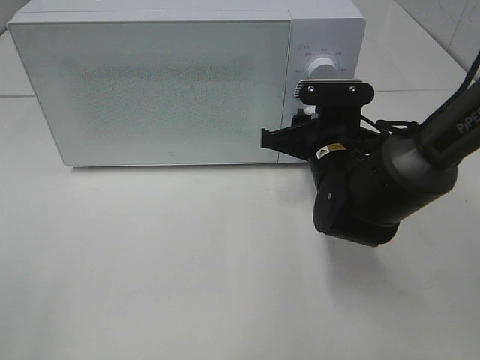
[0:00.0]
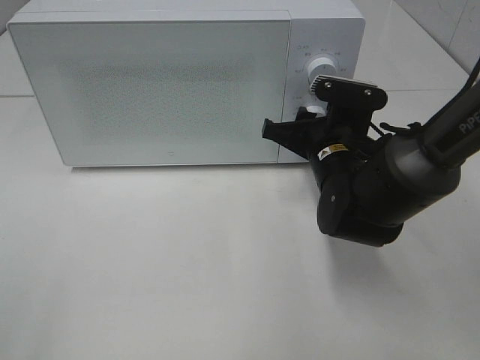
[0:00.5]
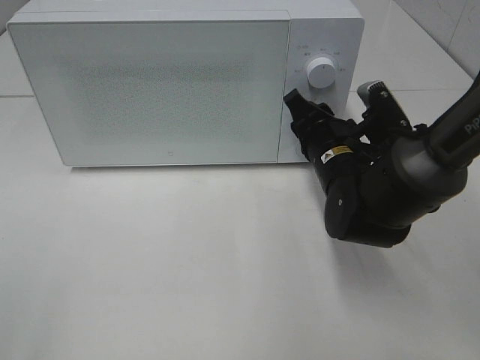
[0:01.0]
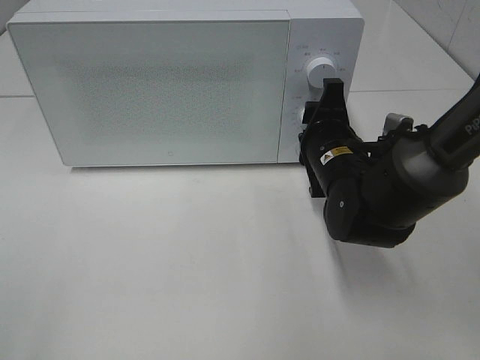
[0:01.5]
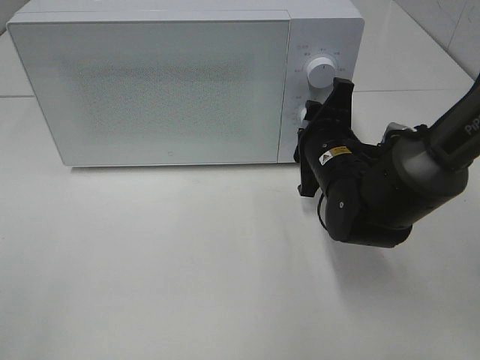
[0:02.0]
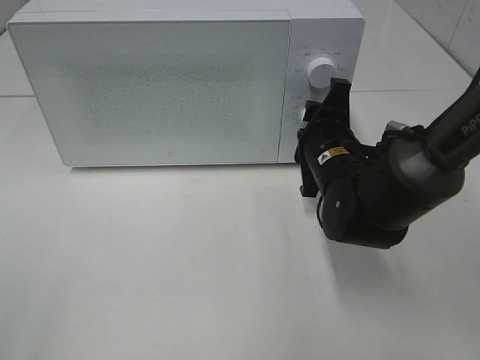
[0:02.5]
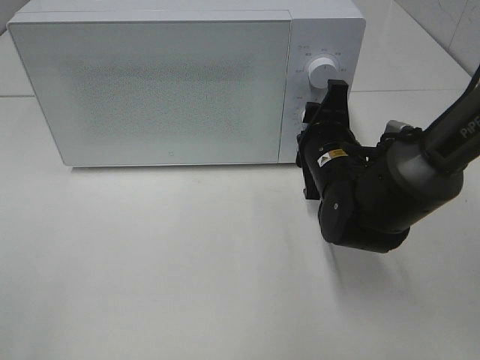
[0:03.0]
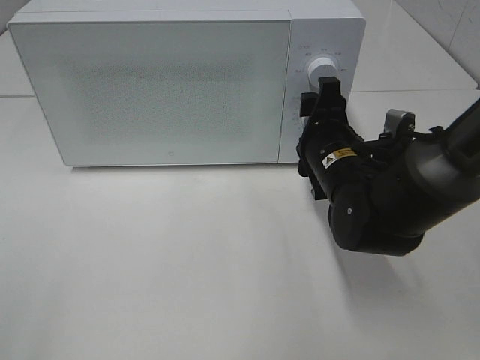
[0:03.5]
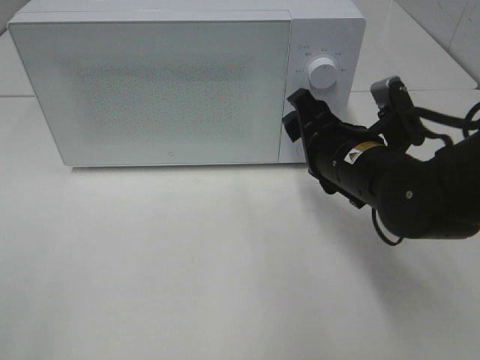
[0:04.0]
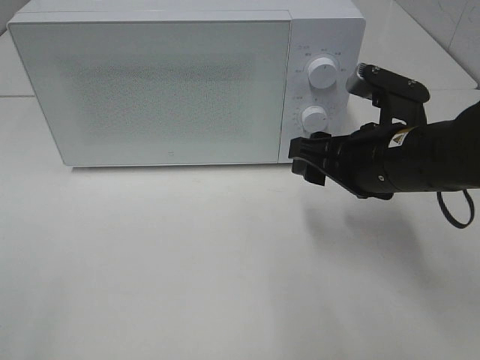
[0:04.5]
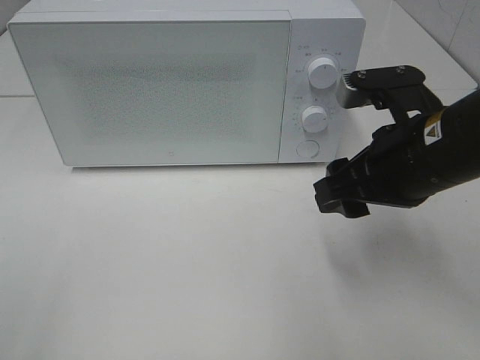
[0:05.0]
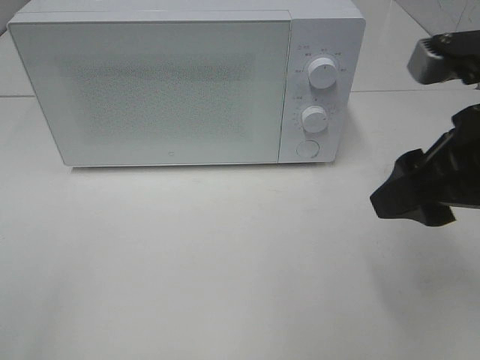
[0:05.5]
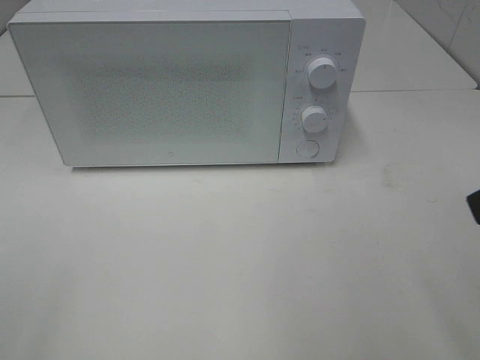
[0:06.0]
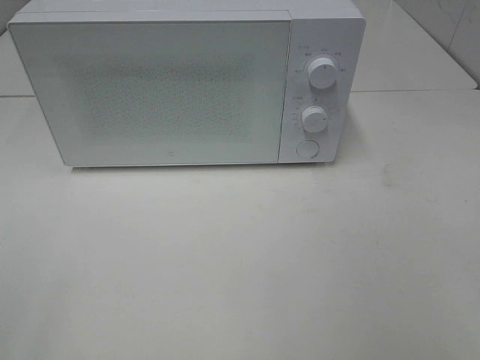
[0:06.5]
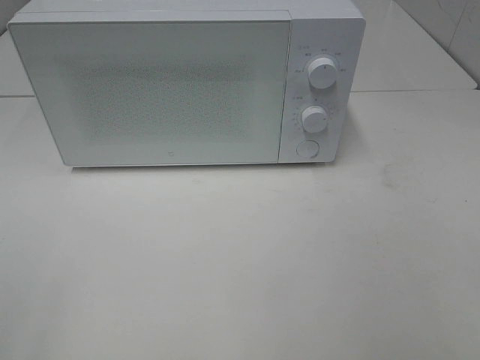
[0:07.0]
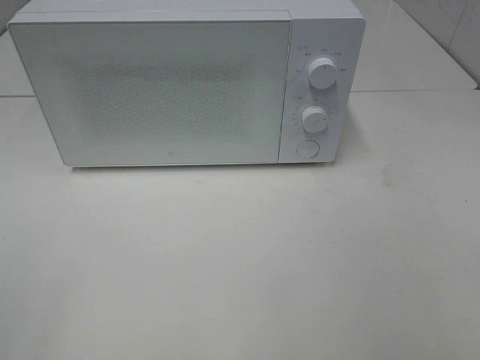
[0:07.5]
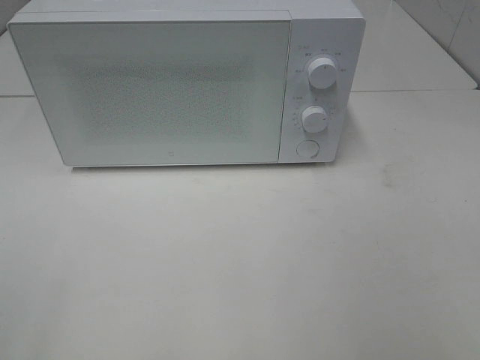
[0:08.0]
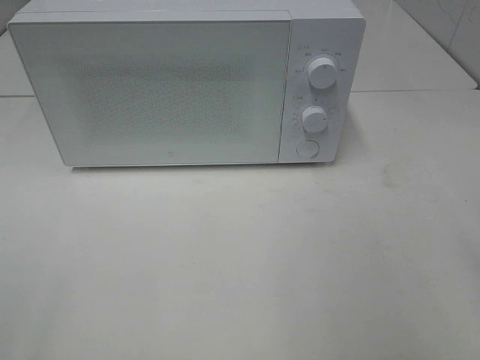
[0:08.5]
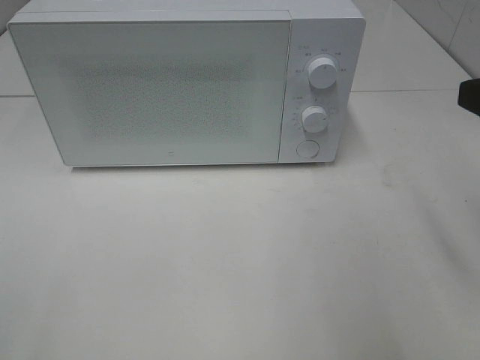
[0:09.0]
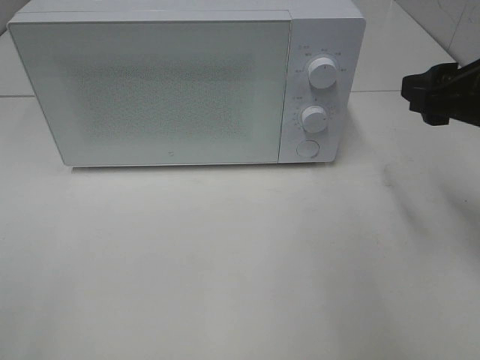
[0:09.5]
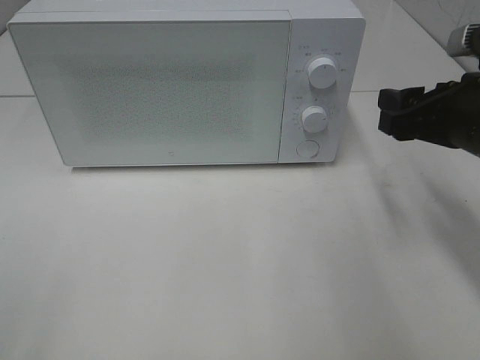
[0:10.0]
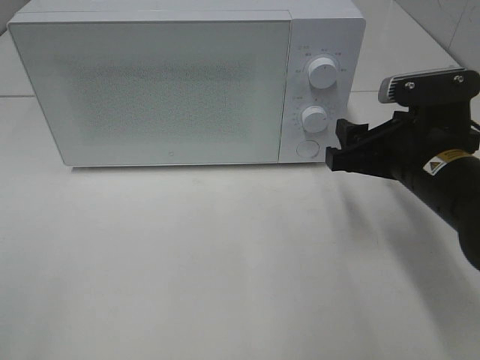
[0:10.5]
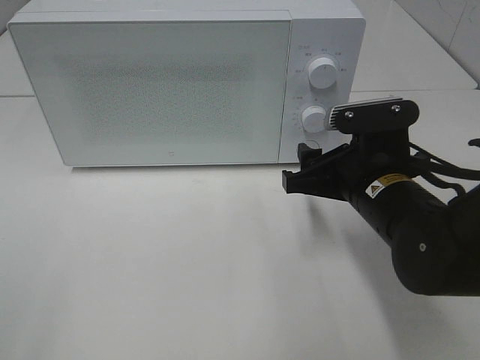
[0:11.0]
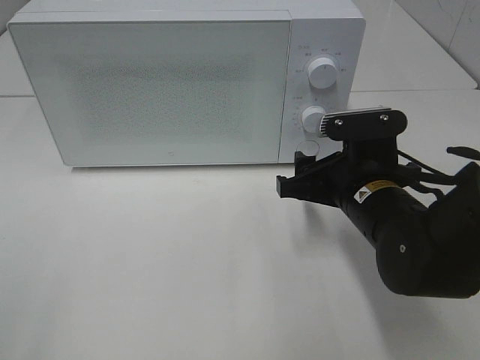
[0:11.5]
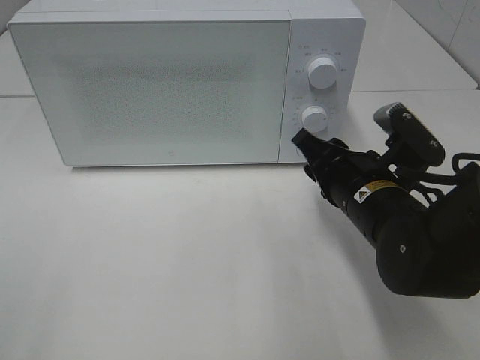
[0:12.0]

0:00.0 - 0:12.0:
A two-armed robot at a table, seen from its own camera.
Task of the whole recording: Heat the burger.
Step, 0:00.0 - 0:03.0: Right hand: twist timer button.
0:02.0 - 0:04.0: The right gripper moves some 5 cm.
0:04.0 - 0:06.0: The right gripper travels backward, upward and to the right by some 25 cm.
0:08.0 - 0:10.0: The right gripper is displaced forward and downward by some 25 cm.
0:10.0 - 0:12.0: The right gripper shifts some 15 cm to the left and downward.

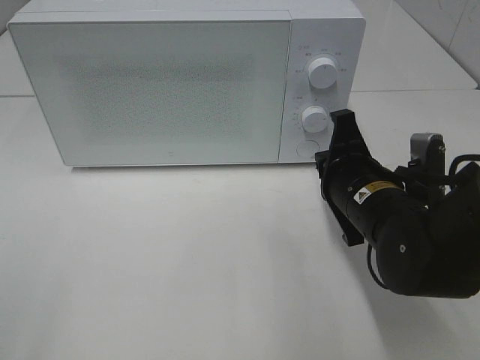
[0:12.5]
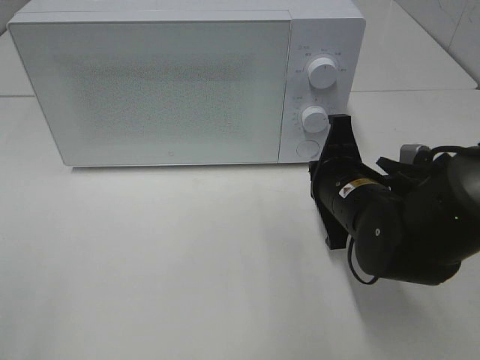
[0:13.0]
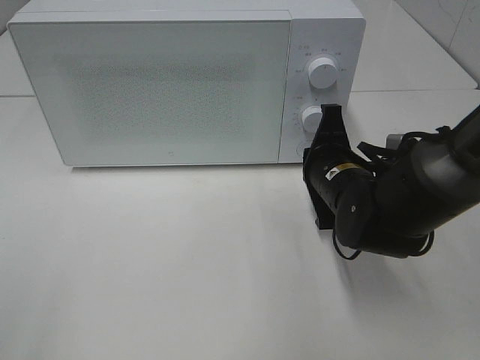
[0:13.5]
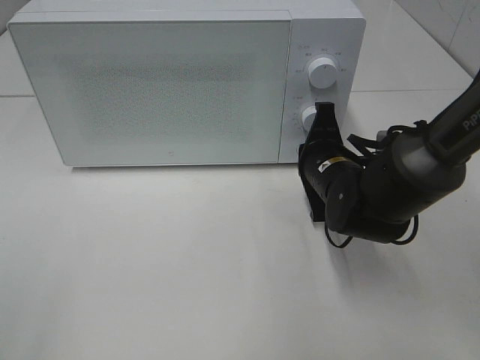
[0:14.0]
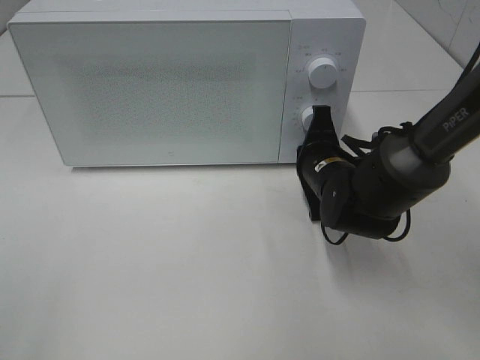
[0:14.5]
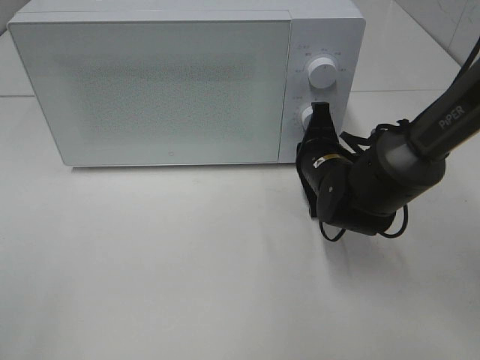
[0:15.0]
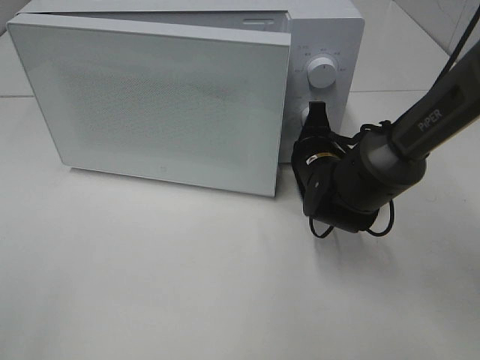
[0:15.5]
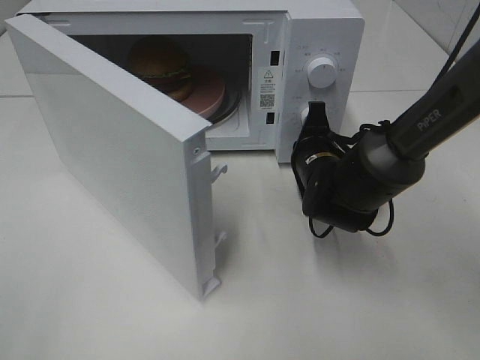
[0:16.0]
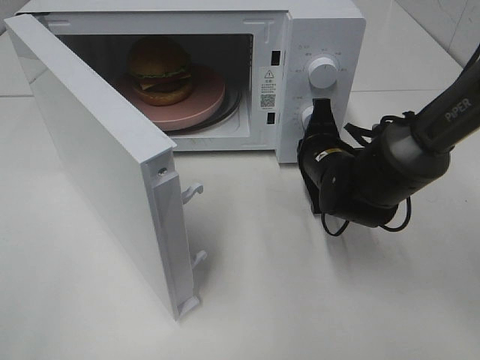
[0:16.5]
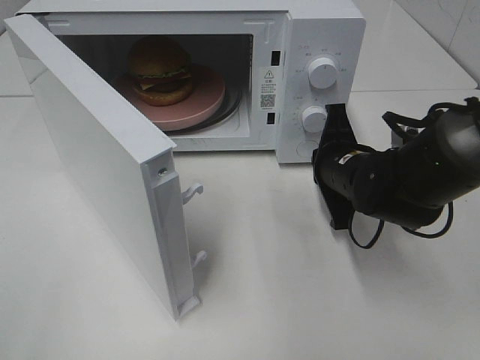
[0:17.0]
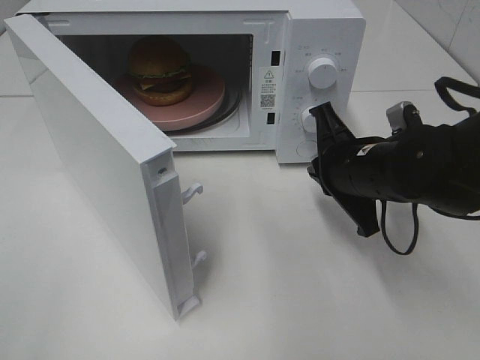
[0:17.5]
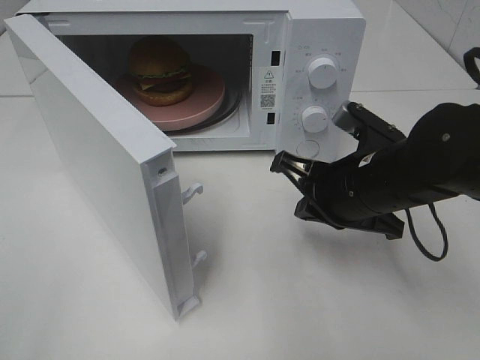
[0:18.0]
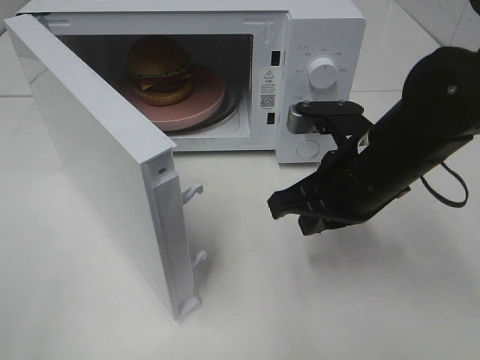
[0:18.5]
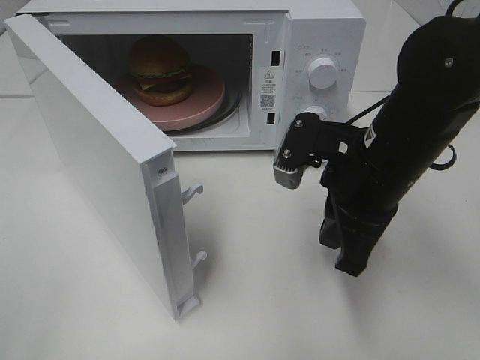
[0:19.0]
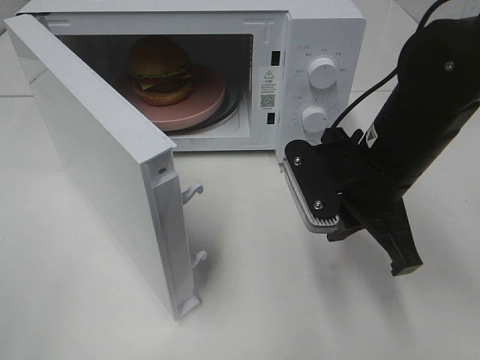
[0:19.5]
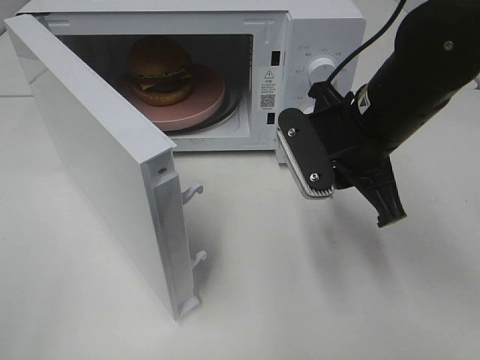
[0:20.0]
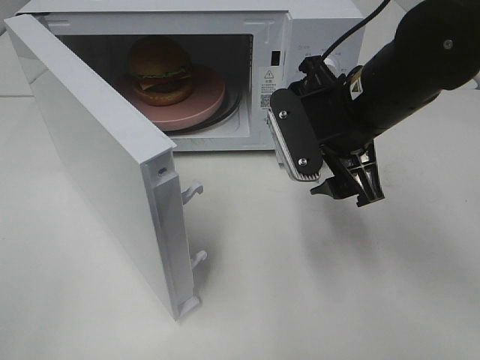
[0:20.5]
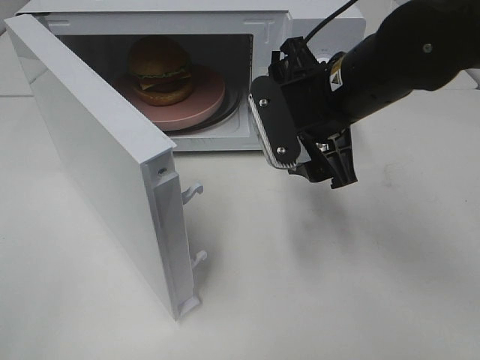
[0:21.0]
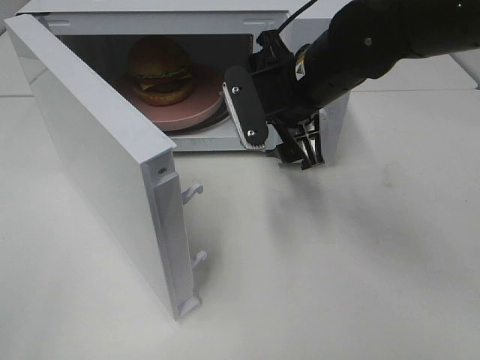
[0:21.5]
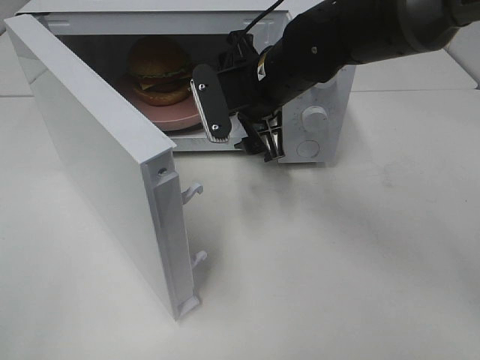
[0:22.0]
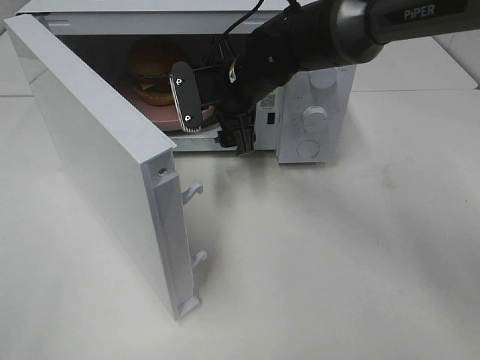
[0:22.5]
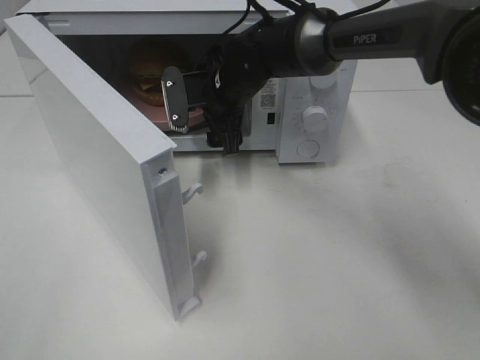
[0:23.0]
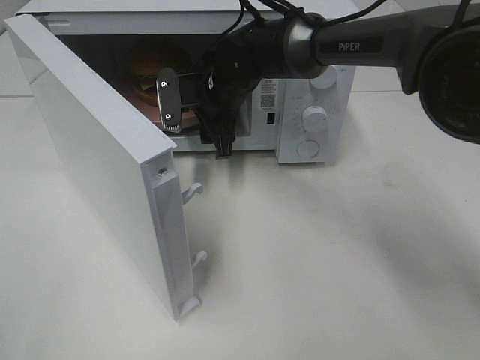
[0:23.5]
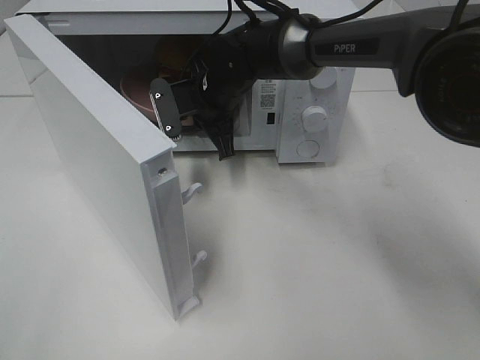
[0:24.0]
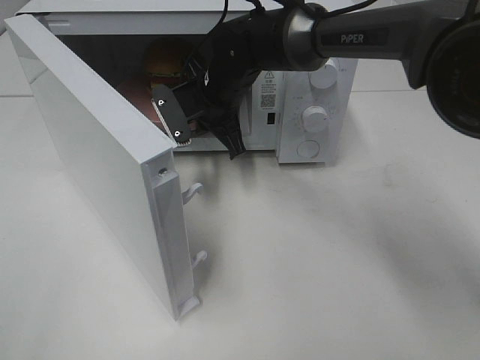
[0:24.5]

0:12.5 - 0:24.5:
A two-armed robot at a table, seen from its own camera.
Task of the whole recording: Heat the burger.
Step, 0:12.5 - 0:16.5: Right hand: press the switch.
Step, 0:17.0 - 0:23.5: Right hand: grab the plate with the hamburger.
0:12.5 - 0:14.5: The right gripper is displaced forward by roughly 10 cm.
0:16.5 - 0:18.5: The right gripper travels backward and upward by some 15 cm.
0:18.5 - 0:20.5: The right gripper changes place by approximately 5 cm, and opens up.
0:20.5 - 0:22.5: The right gripper shifts roughly 15 cm forward and to the left.
0:22.5 - 0:24.5: The right gripper closes up.

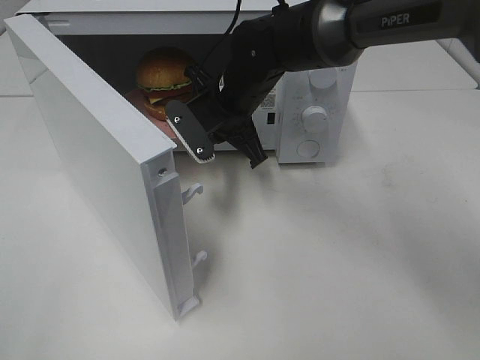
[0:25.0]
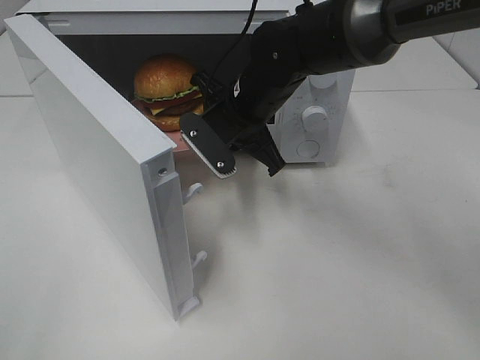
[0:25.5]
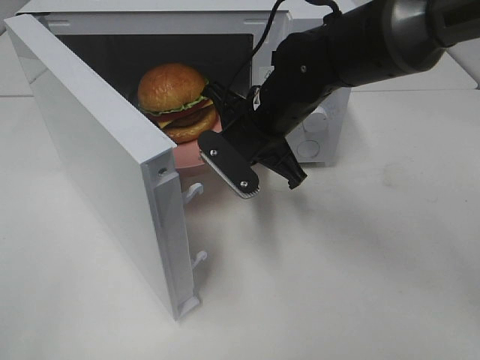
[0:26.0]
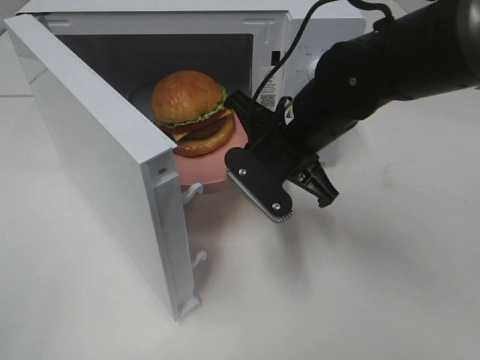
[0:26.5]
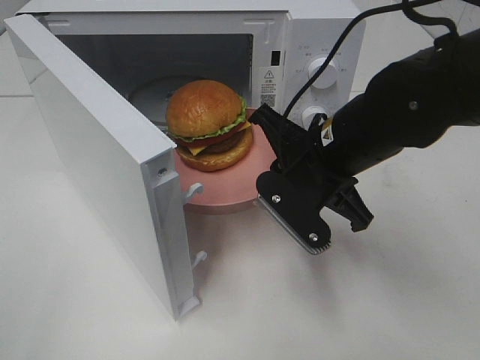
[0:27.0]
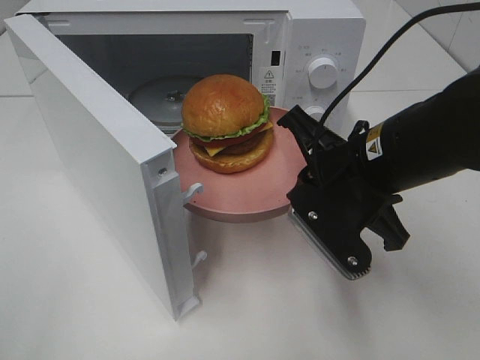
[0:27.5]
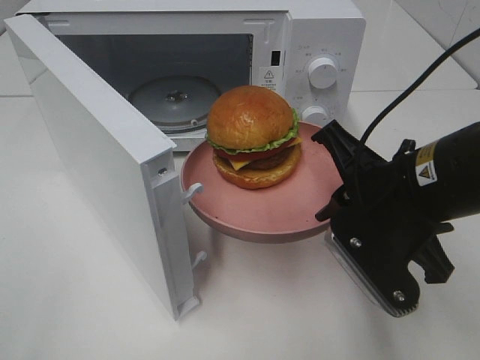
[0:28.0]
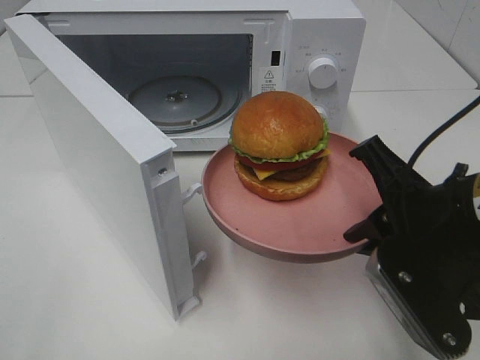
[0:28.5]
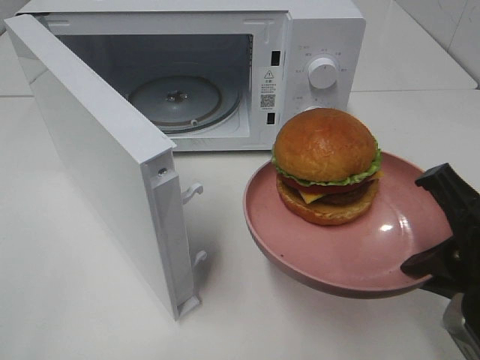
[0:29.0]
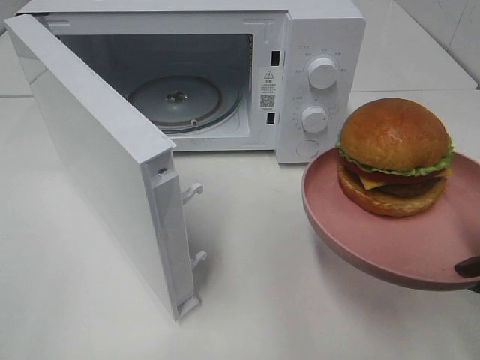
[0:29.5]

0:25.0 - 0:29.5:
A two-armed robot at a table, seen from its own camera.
Task of the whole recording: Heat the burger.
0:25.0 - 0:27.0: The right gripper shifts about 15 cm backward and to the right.
0:27.0 - 0:29.5: The right gripper goes some 20 cm backward and to the right.
